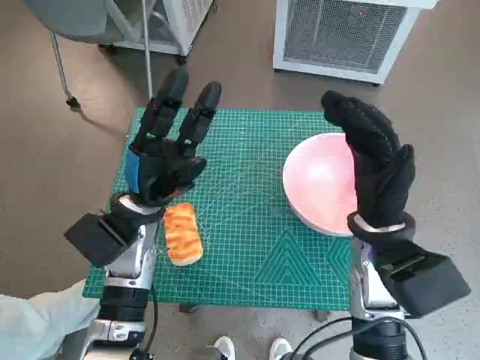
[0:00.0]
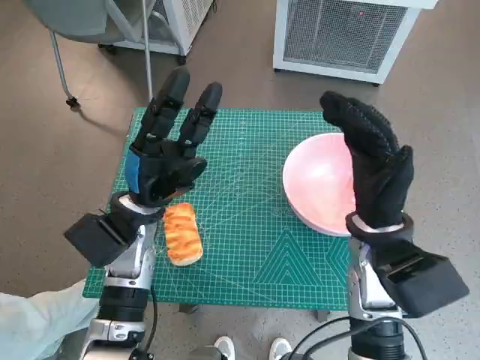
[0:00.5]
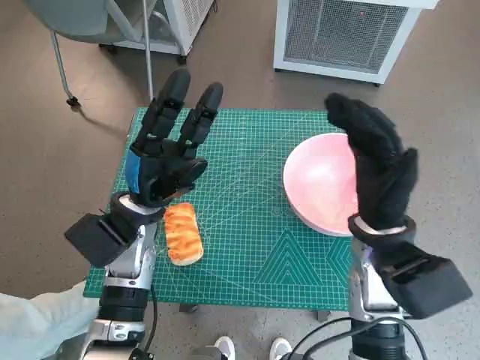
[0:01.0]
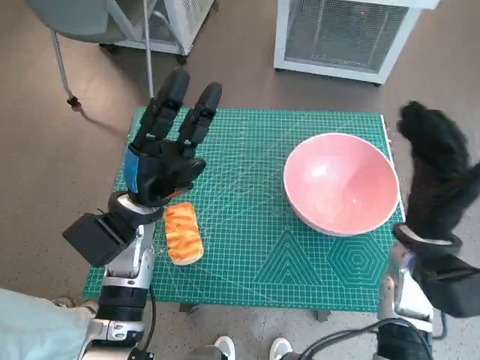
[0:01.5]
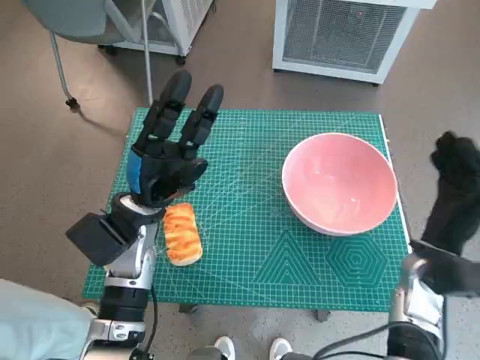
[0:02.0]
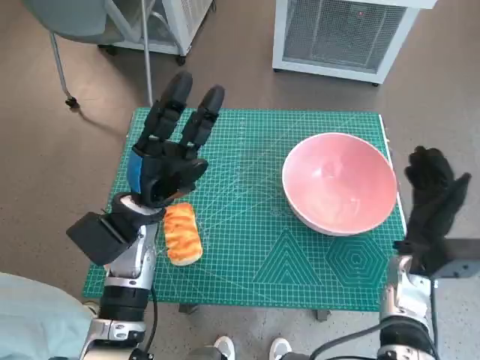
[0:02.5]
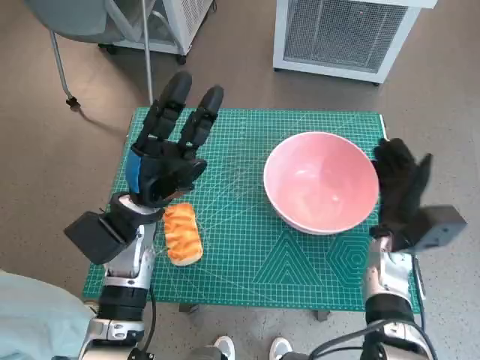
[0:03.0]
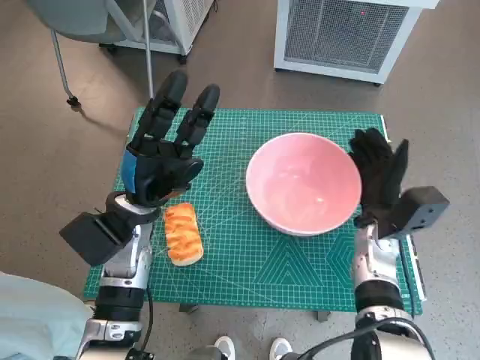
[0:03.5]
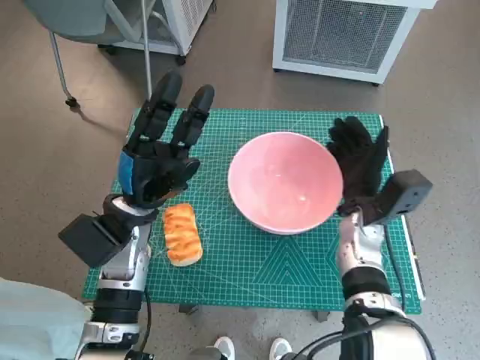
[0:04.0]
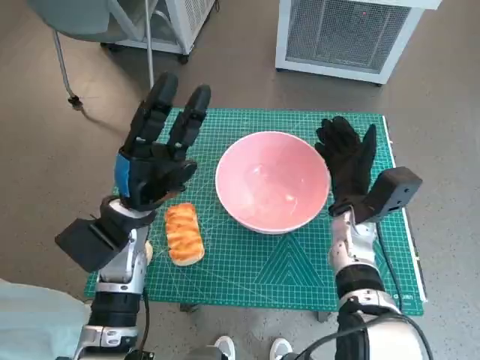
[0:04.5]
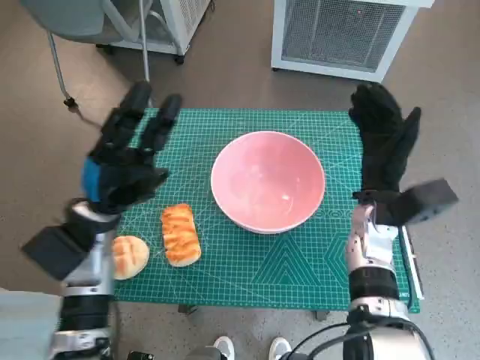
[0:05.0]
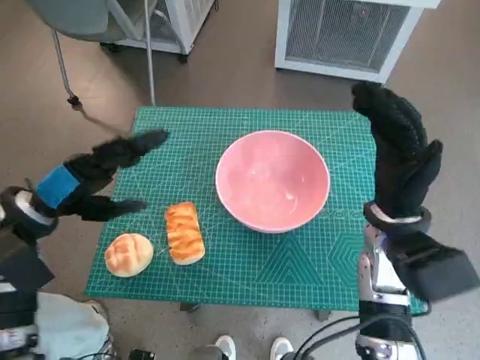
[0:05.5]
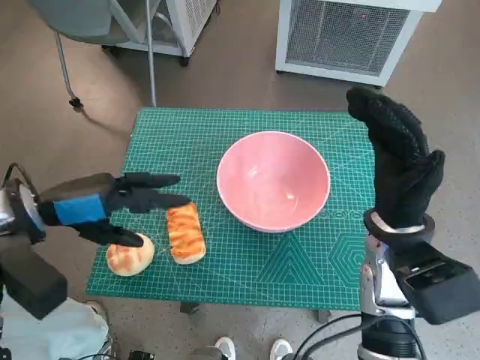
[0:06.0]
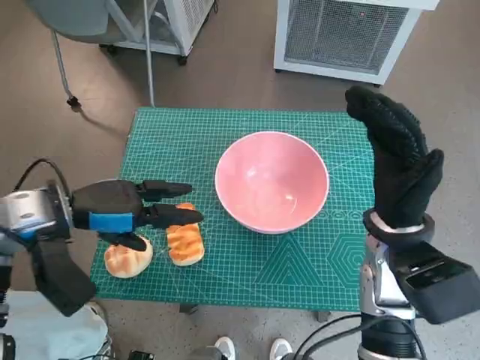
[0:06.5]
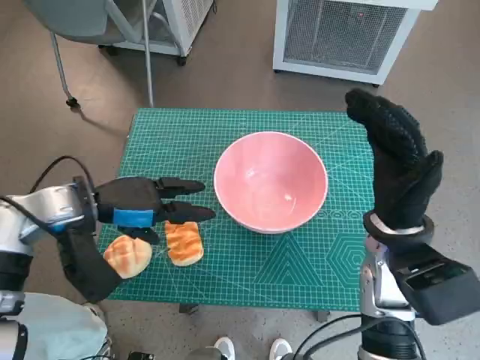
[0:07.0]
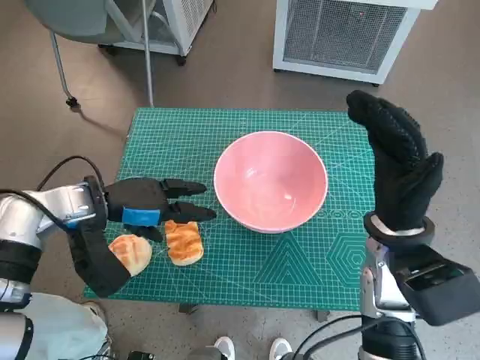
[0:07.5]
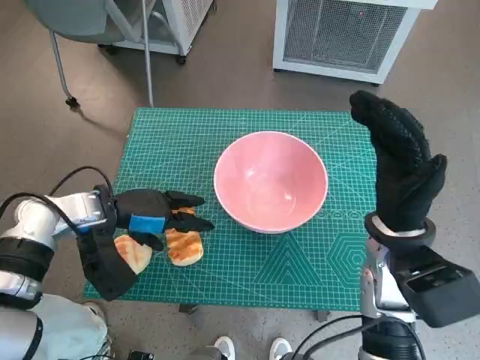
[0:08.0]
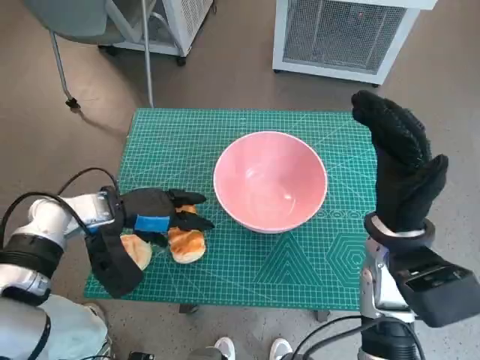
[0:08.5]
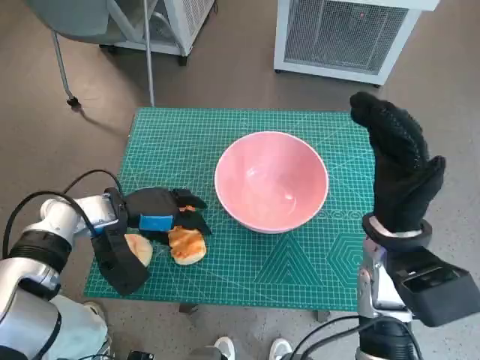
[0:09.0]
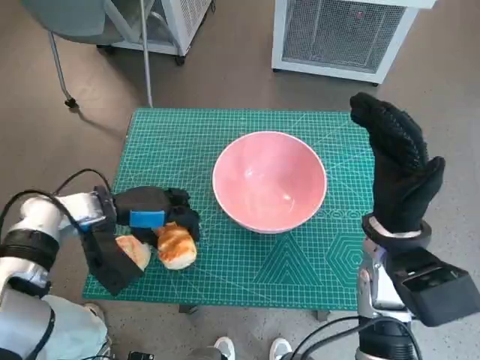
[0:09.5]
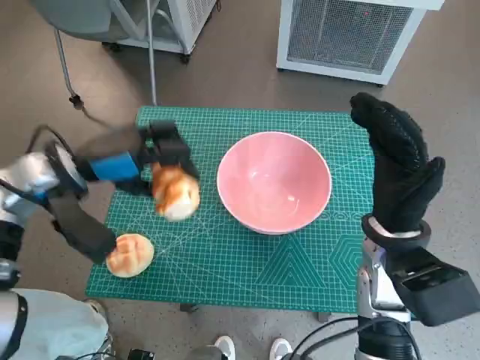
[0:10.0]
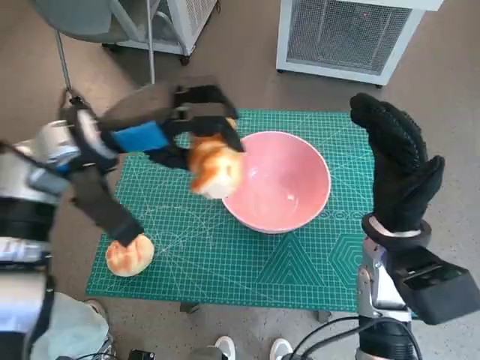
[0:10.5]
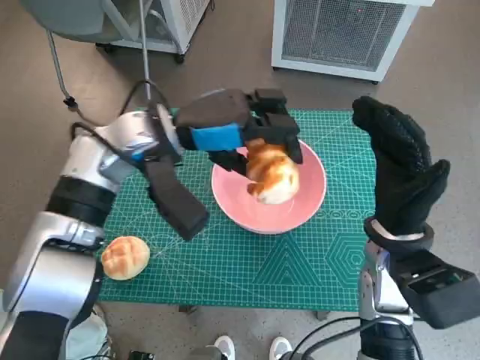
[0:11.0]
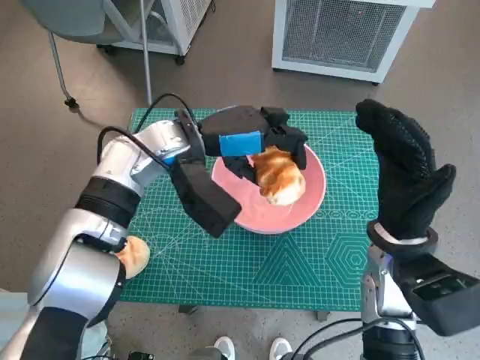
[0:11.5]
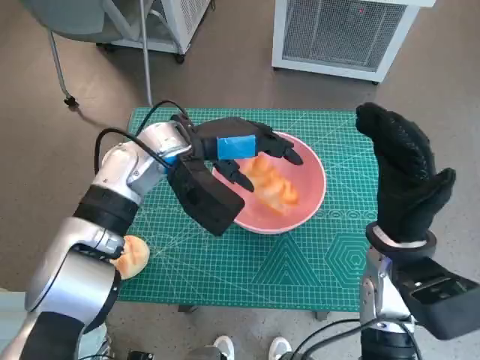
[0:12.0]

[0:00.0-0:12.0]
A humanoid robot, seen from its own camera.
Task of the whole recording: Push the bowl to the center of the table and put the bread into the bowl.
Step, 0:00.0 to 0:04.5: Move the pink bowl to the center of table with right hand.
Step, 0:05.0 to 0:09.0: Grasp the long bread with left hand.
0:02.0 to 0:04.0: The right hand is displaced to the left and forward by approximately 10 cm.
0:04.0 to 0:06.0: The right hand travels upward and backward by about 10 cm. Meanwhile the left hand is displaced to the left and upward by roughly 15 cm.
0:06.0 to 0:08.0: The left hand moves downward, some 5 cm.
0:08.0 to 0:10.0: The left hand shifts about 5 cm upward.
0:10.0 to 0:12.0: The left hand moves to the right, roughly 15 cm.

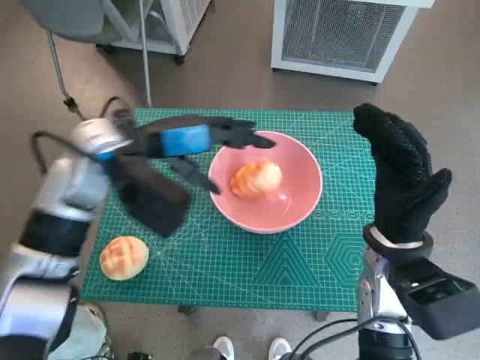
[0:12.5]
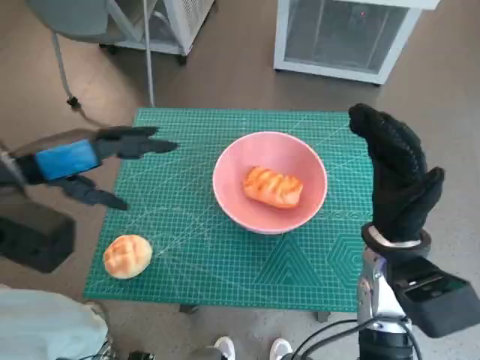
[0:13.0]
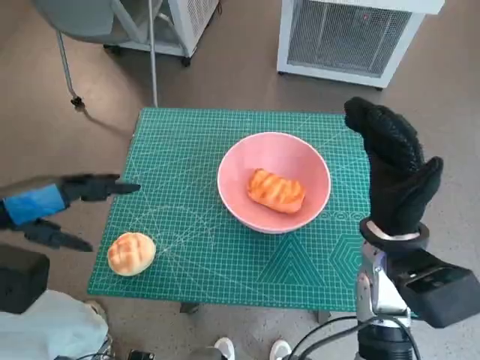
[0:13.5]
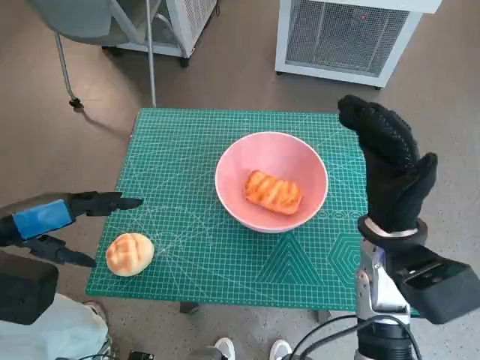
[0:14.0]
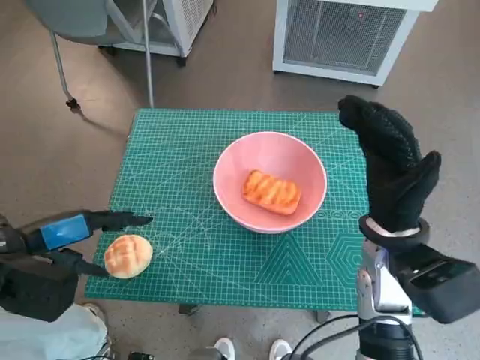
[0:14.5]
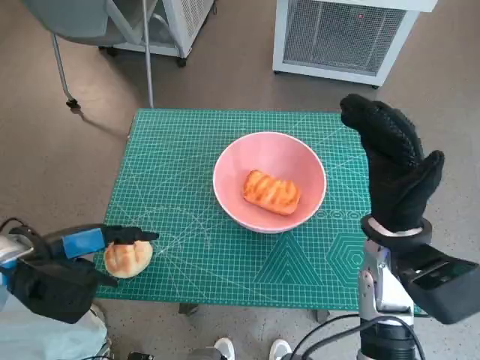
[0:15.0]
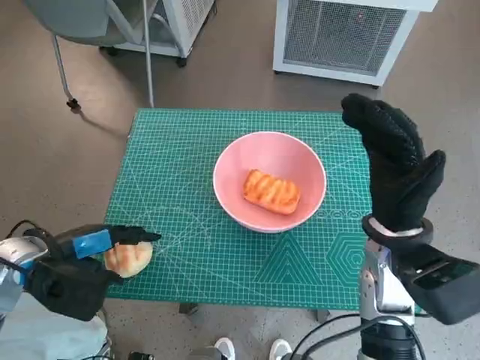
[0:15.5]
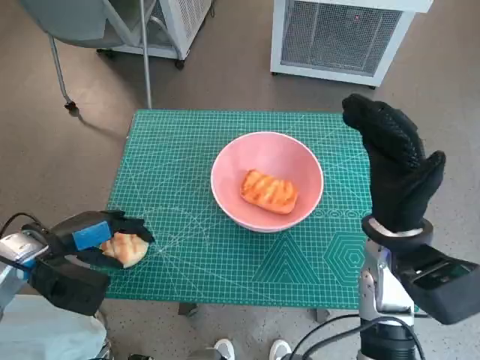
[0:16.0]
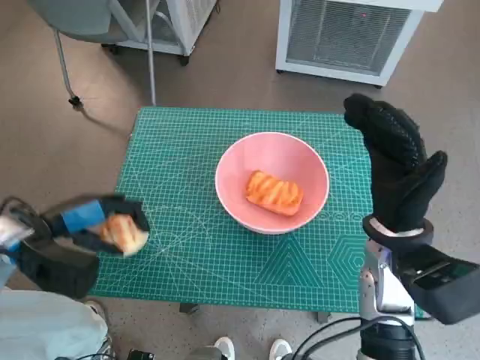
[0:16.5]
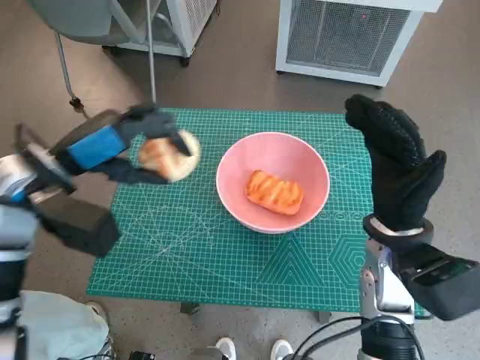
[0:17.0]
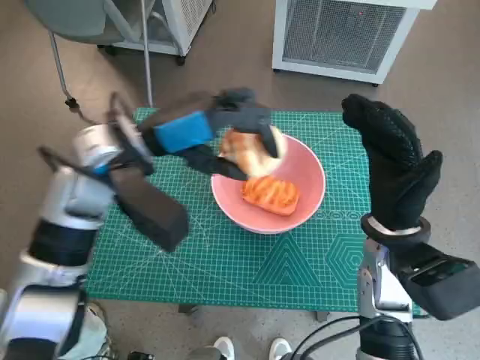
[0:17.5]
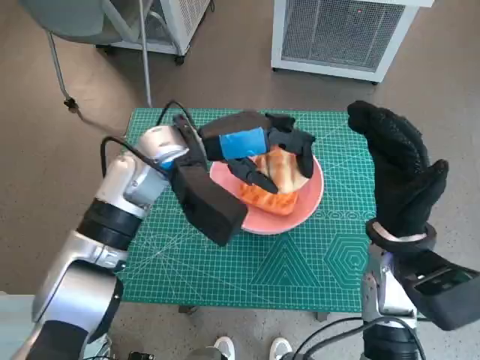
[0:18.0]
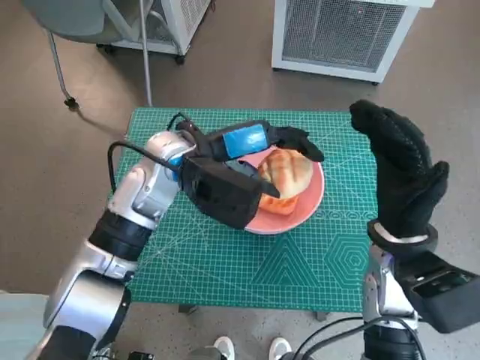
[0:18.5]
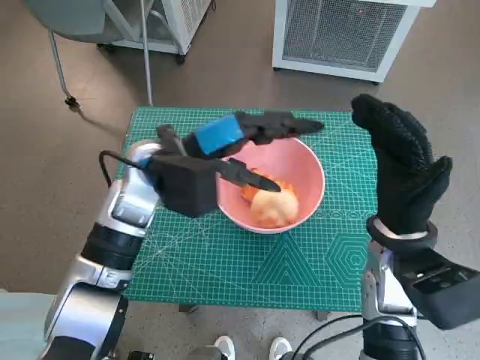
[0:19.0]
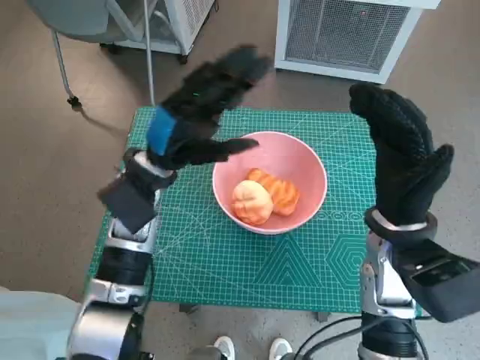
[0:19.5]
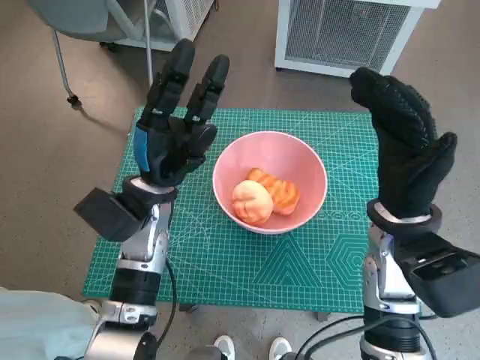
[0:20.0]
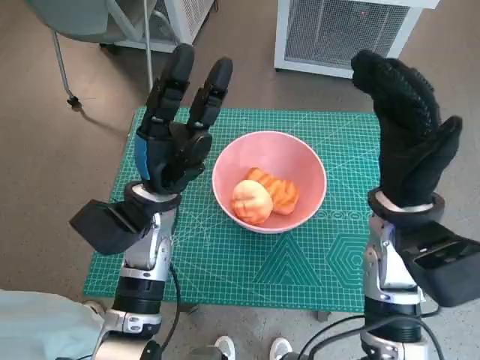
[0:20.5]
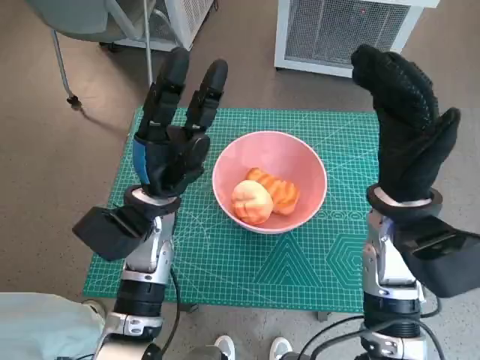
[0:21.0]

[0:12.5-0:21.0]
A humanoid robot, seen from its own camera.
Task of the whole recording: Push the bowl to the center of the table and put the bread into the bowl.
Step, 0:13.0 to 0:16.0: Grasp the round bread with left hand.
Step, 0:16.5 to 0:19.0: Place the round bread in pink bowl with left hand.
0:12.5 to 0:14.5: The left hand is displaced to the left and backward by about 20 cm.
0:14.5 to 0:16.5: The left hand ends up approximately 5 cm from where it was.
0:16.5 to 0:19.0: The left hand travels to the right and forward by some 20 cm.
0:19.0 to 0:21.0: The left hand goes approximately 5 cm downward.
